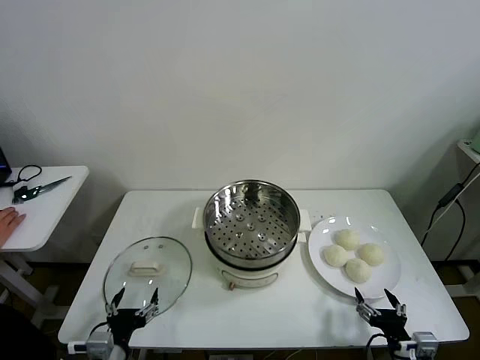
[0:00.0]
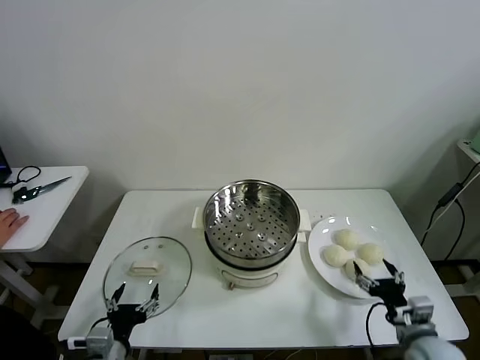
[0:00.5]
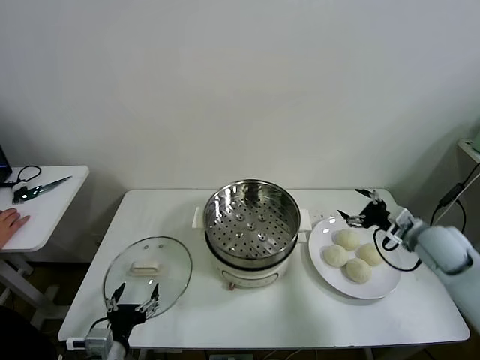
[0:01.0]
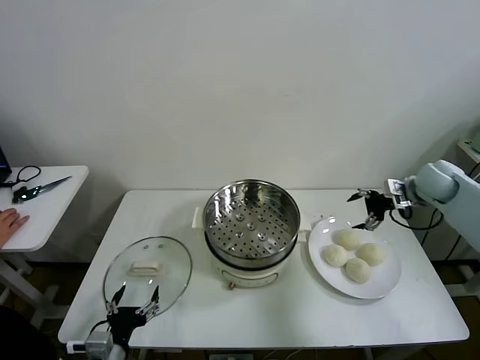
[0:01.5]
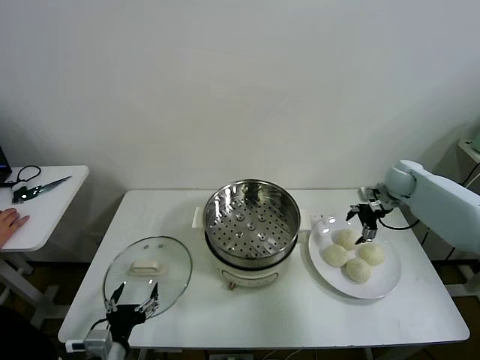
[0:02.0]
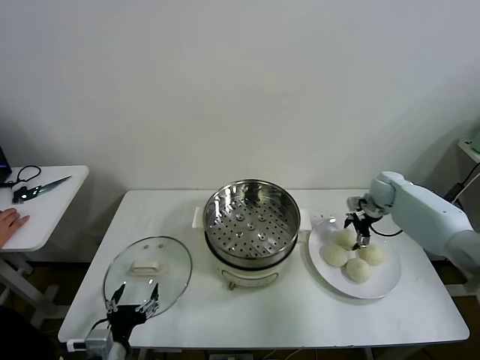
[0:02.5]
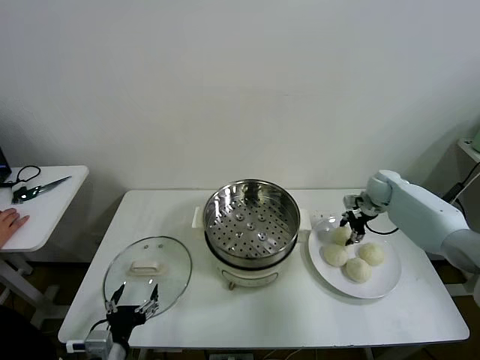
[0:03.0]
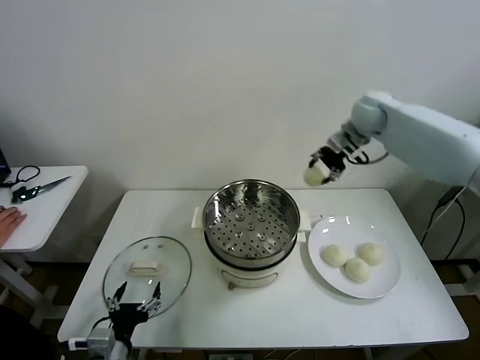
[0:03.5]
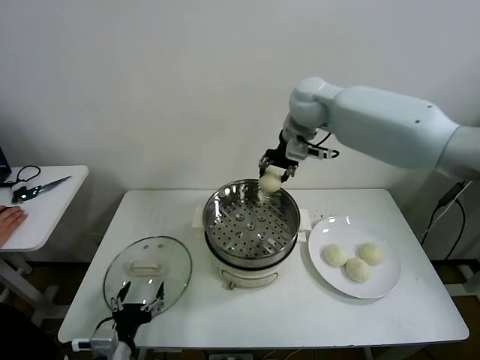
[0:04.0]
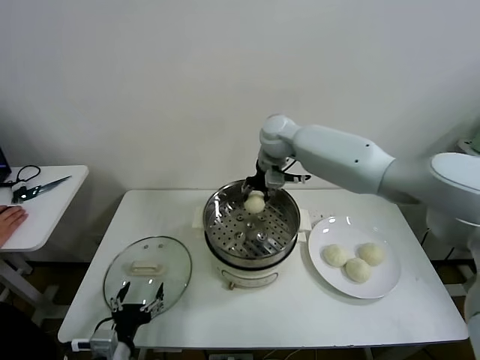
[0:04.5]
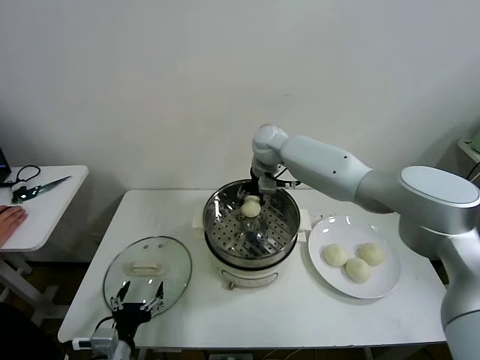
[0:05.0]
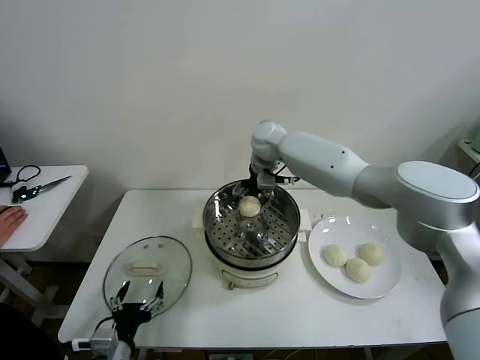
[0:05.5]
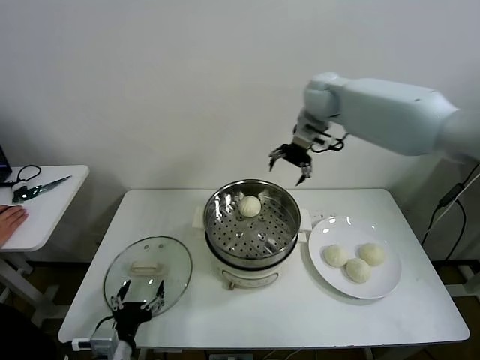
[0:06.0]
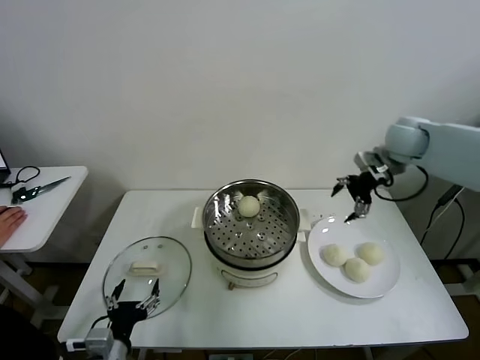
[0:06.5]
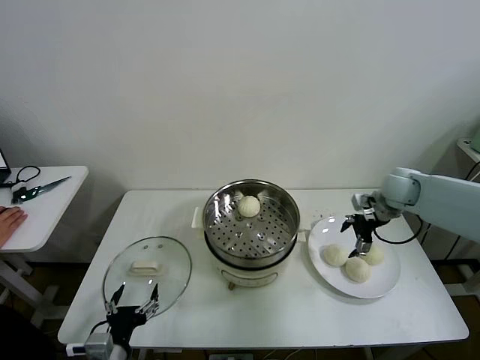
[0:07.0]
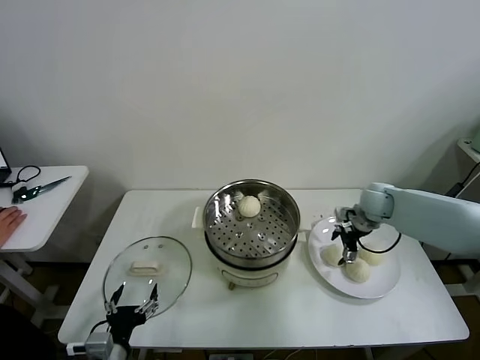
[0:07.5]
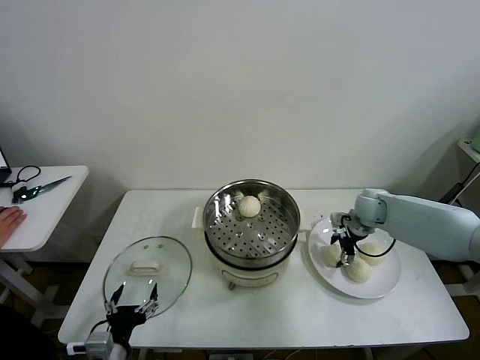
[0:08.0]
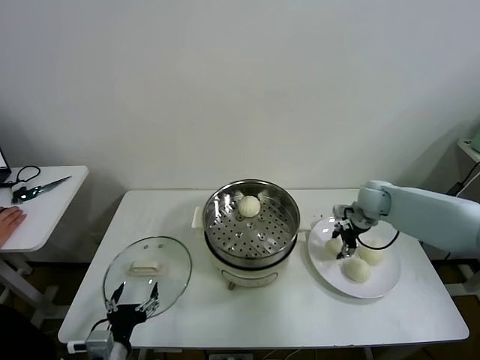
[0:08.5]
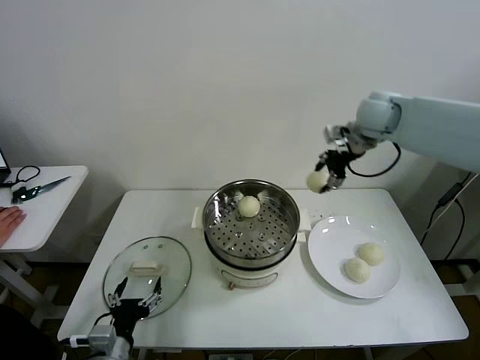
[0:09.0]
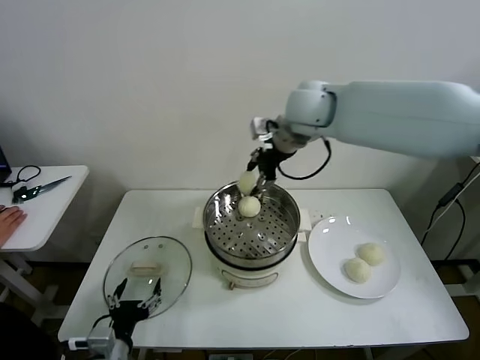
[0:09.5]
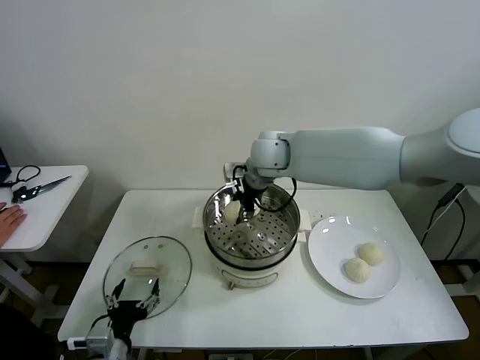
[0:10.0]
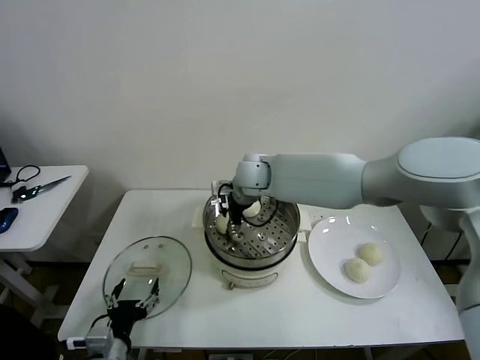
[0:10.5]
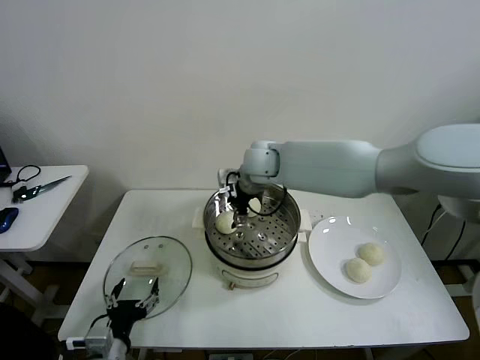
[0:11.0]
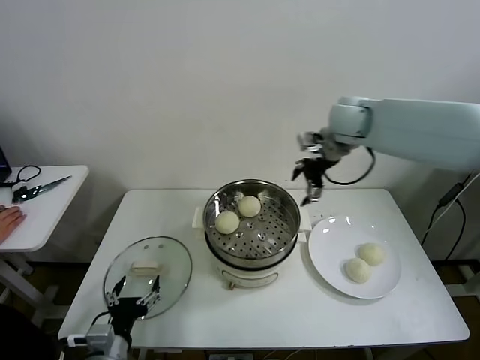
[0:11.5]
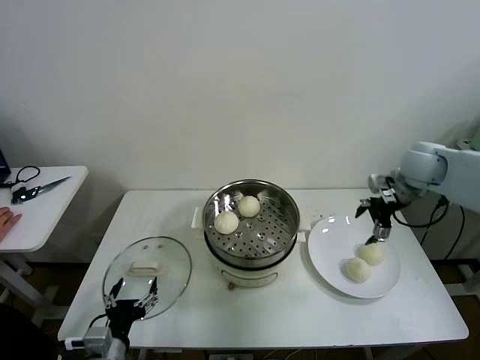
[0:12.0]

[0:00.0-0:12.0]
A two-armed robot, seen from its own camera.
Task of the whole recording: take steamed baozi put them in steamer then cover it.
Step, 0:00.0 to 0:02.5: Grasp the baozi in the plate with right gripper.
Step, 0:03.5 to 0:05.0: Place the baozi on the steamer with right gripper.
Step, 0:05.5 to 0:08.0: Grasp the baozi in the plate with right gripper.
Step, 0:08.5 to 0:10.5: Place the baozi on the steamer with right gripper.
0:02.0 to 0:04.0: The right gripper heads to the left and upward, covering roughly 35 cm, and closes.
0:04.0 to 0:06.0: The right gripper travels to the right by some 10 cm, and opens its fingers.
0:06.0 to 0:08.0: The right gripper goes about 30 cm downward and to the right.
0:08.0 to 0:10.0: The right gripper moves to the left and upward, about 35 cm, and closes.
0:10.0 to 0:12.0: The right gripper is displaced to the right by approximately 35 cm, and opens.

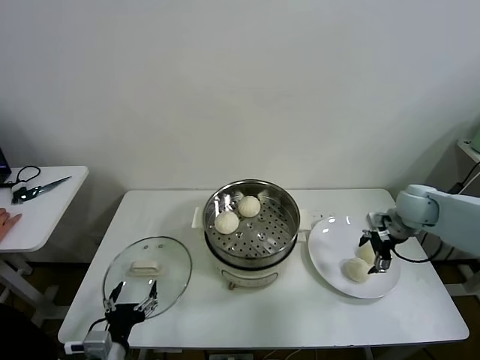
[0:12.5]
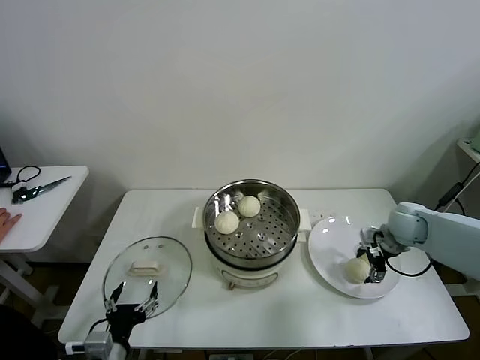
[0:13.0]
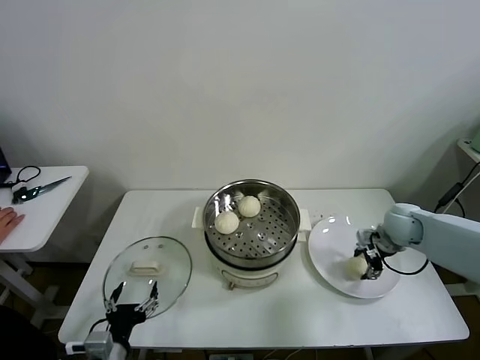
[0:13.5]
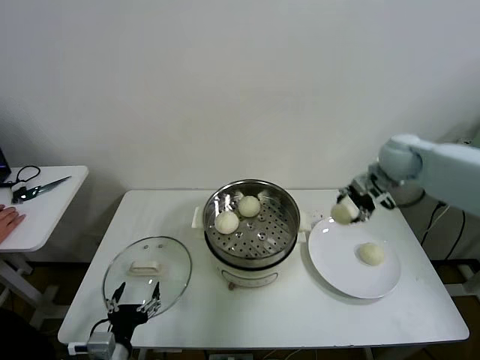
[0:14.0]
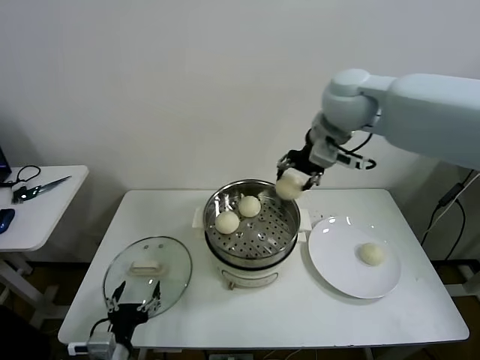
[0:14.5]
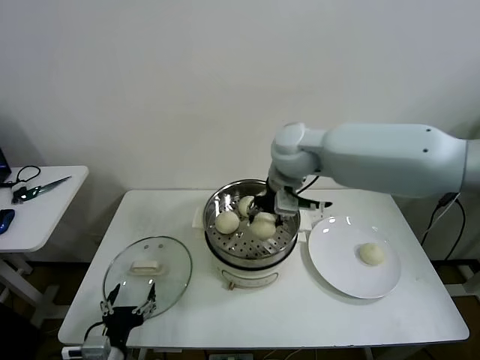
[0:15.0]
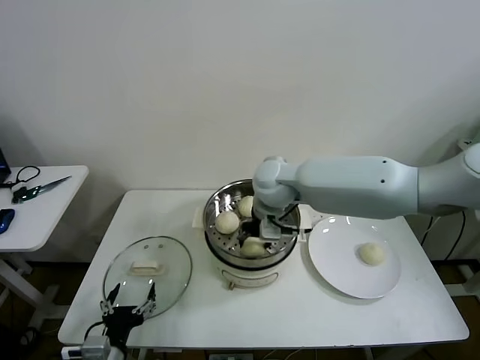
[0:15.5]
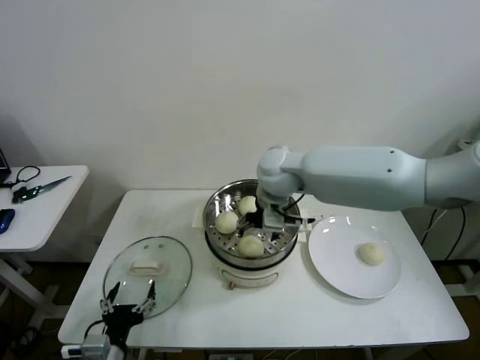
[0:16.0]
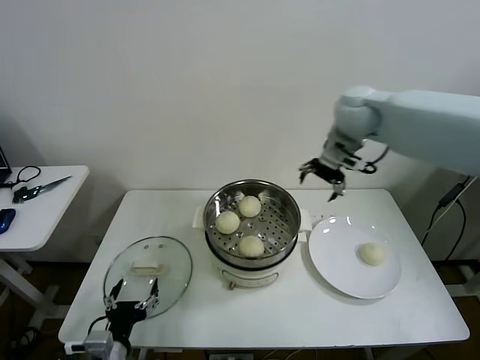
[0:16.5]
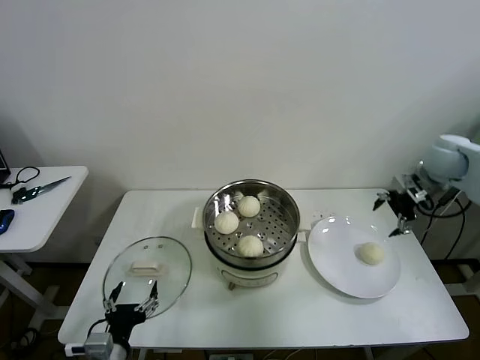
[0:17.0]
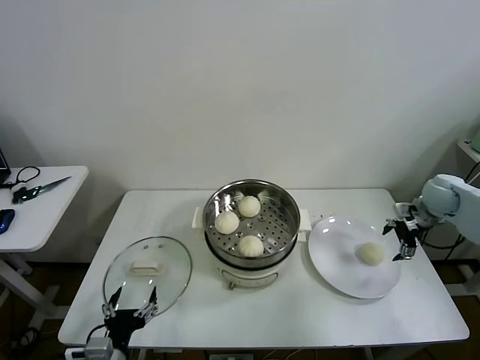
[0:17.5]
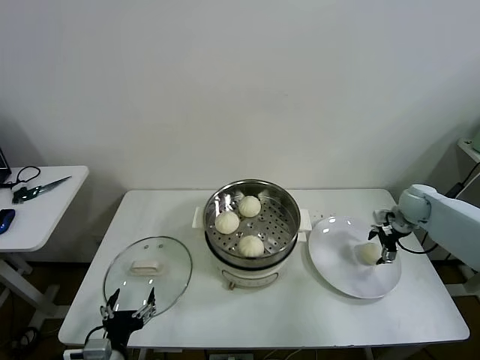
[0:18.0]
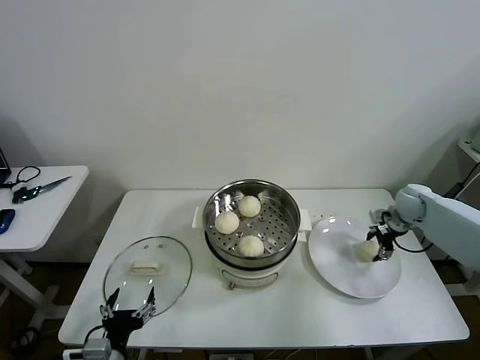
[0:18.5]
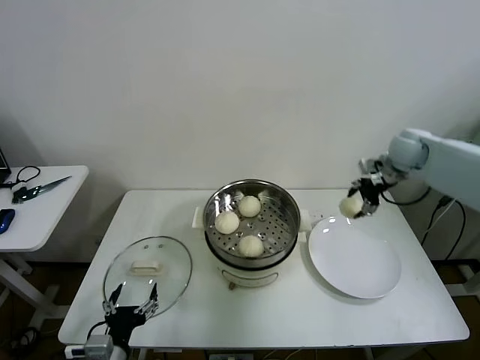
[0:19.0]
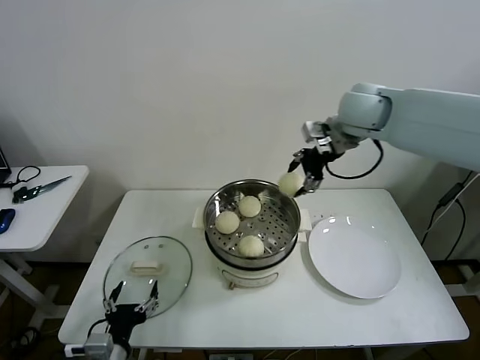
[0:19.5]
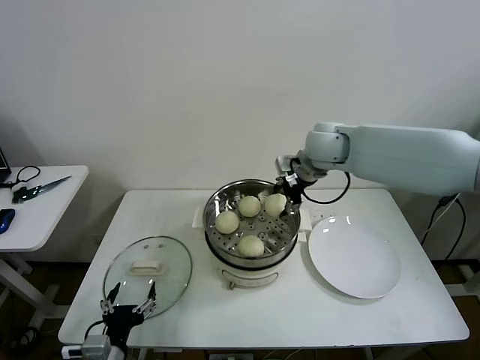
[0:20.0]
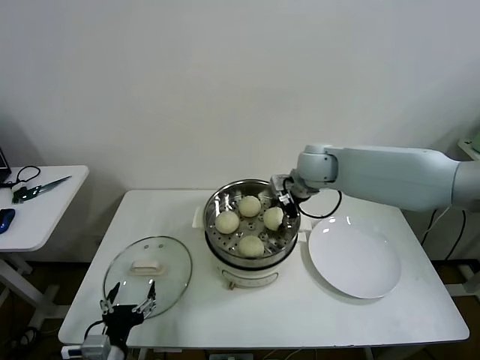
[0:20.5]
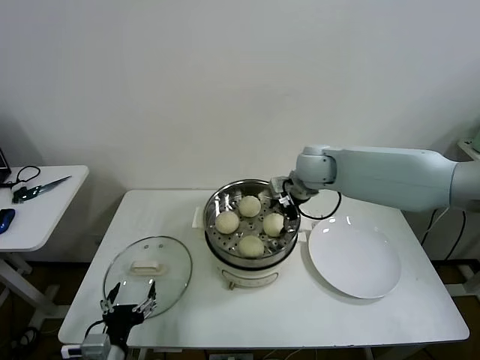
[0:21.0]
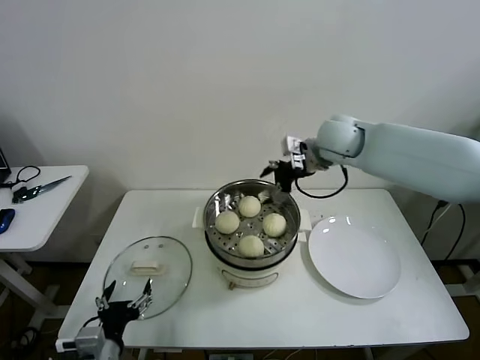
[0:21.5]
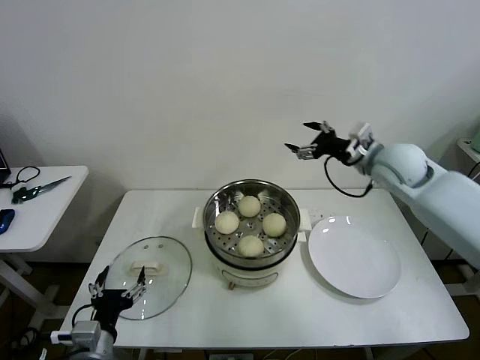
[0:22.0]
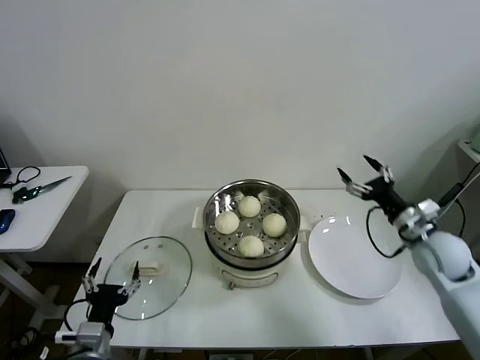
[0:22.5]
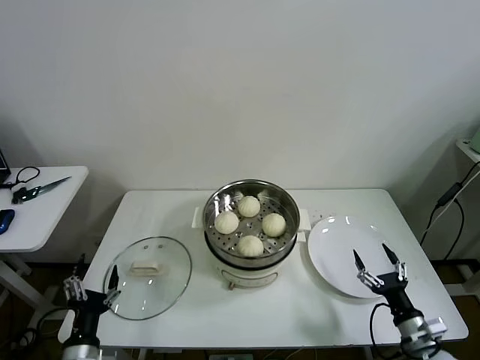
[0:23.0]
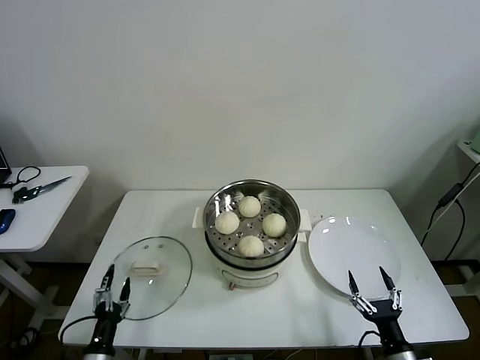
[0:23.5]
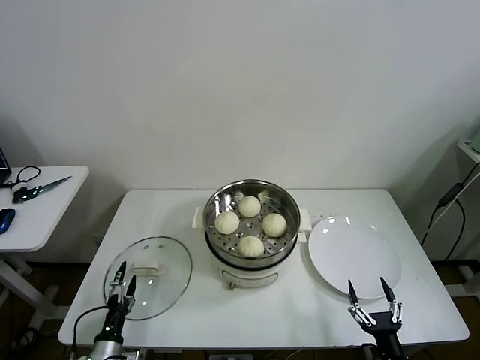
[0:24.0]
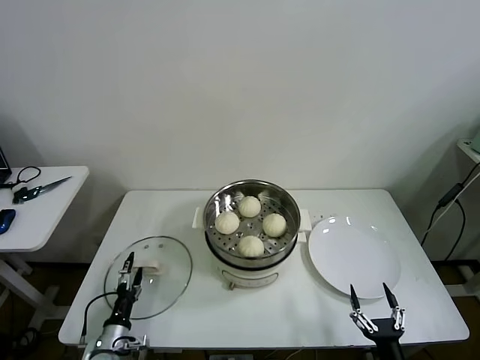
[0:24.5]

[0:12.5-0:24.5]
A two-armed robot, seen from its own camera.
Task of the whole recording: take steamed baozi put them in steamer then cover it.
Step, 0:13.5 to 0:15.5: Place the baozi on the steamer with right gripper.
Step, 0:16.0 to 0:18.5: Grasp the baozi in the plate with right gripper.
Step, 0:19.0 to 0:21.0: Place the baozi on the steamer with right gripper.
0:12.5 to 0:14.5: The right gripper is displaced upward and to the left by approximately 35 cm, and closes.
0:14.5 to 0:16.5: The right gripper travels to the right by some 5 cm, and opens its fingers.
0:16.5 to 0:18.5: The right gripper heads downward and to the right, covering some 35 cm, and closes.
0:18.5 to 0:20.5: The right gripper shifts about 30 cm to the left and upward.
0:20.5 to 0:22.5: The right gripper goes roughly 30 cm to the right, backward and downward, and opens its fingers.
0:22.5 to 0:24.5: The left gripper is displaced downward by some 15 cm, while the right gripper is displaced backward and downward by roughly 35 cm.

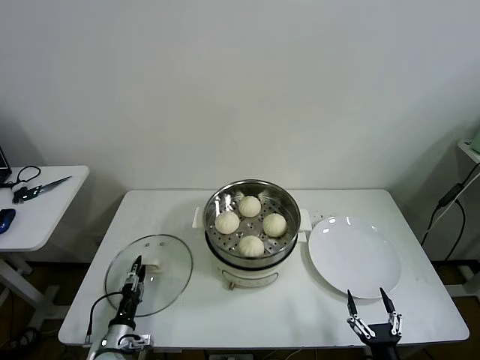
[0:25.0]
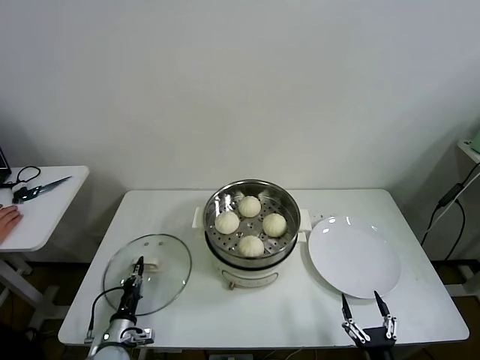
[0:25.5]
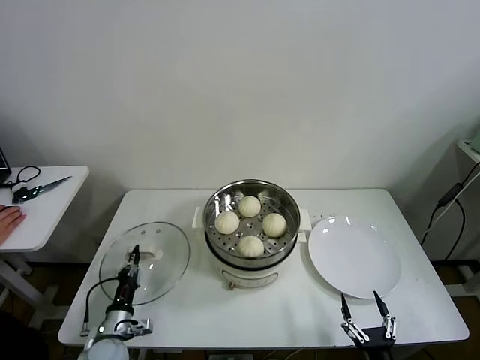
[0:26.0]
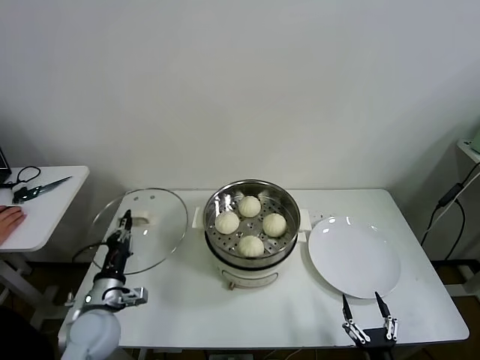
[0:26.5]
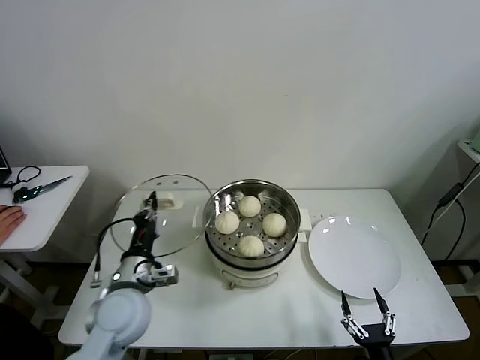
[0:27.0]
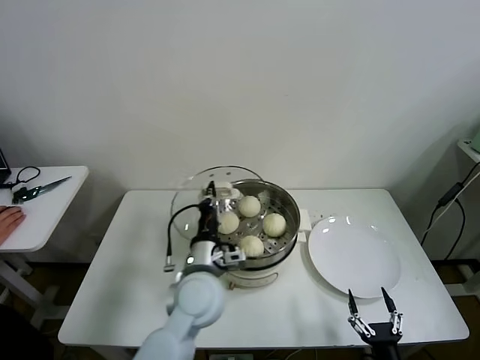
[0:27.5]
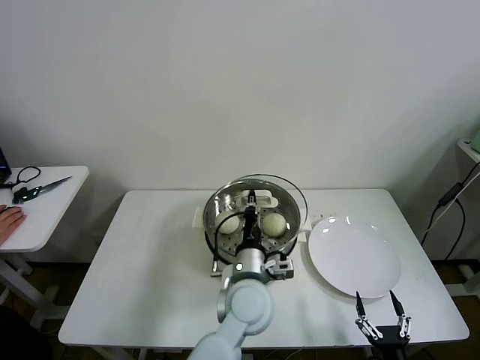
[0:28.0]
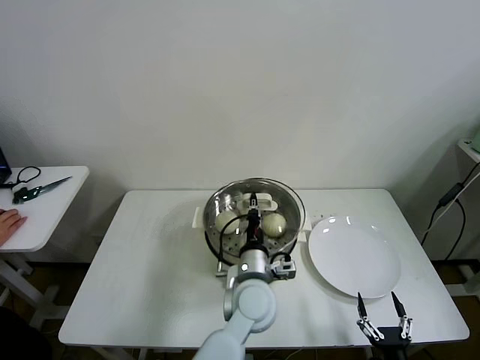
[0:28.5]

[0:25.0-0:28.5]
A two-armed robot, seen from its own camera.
Task of the whole recording: take steamed baozi put them in steamer then cover it.
0:25.0 to 0:27.0: The left gripper moves upward, roughly 25 cm, and closes up.
0:27.0 to 0:28.5: The left gripper goes approximately 25 cm to the right.
